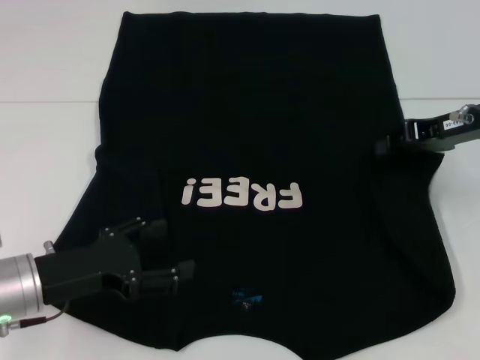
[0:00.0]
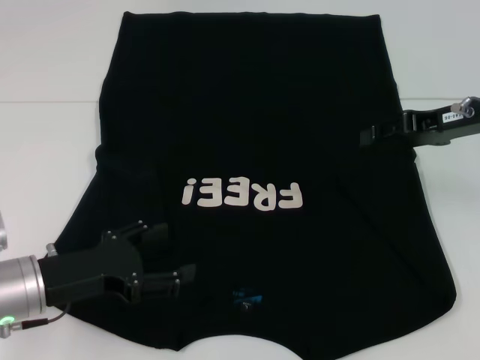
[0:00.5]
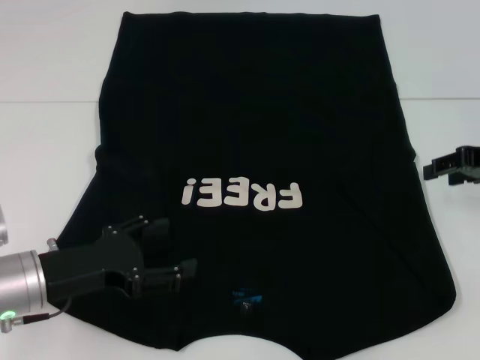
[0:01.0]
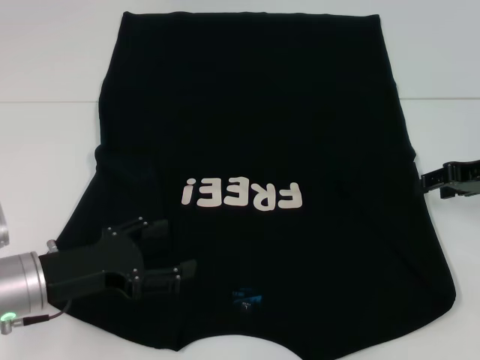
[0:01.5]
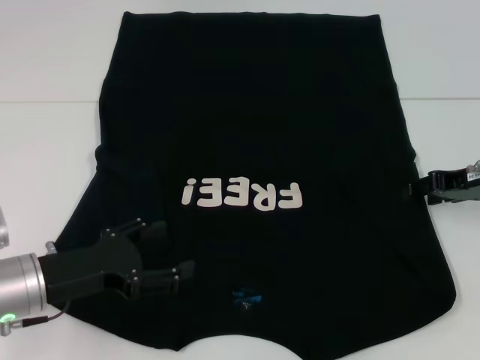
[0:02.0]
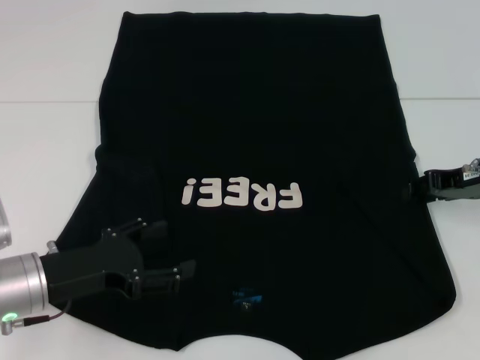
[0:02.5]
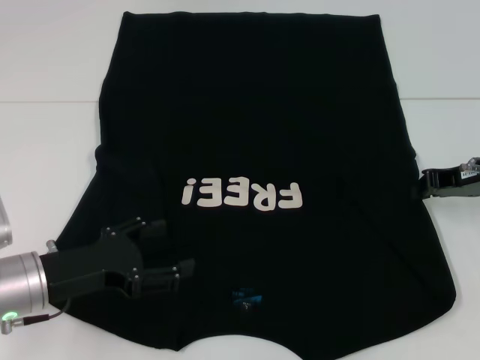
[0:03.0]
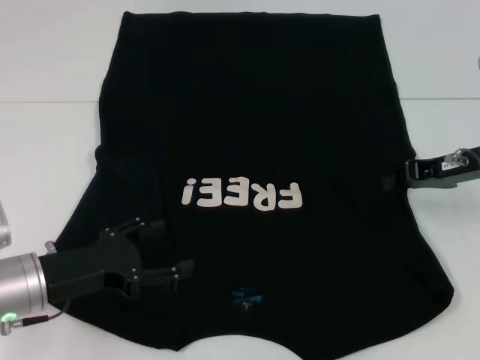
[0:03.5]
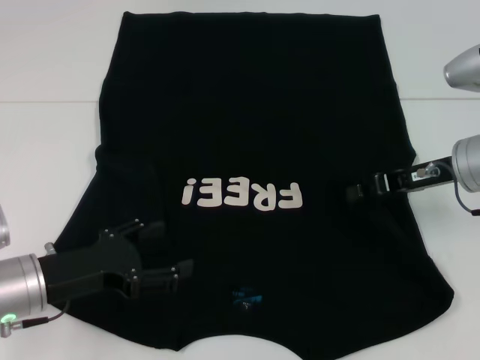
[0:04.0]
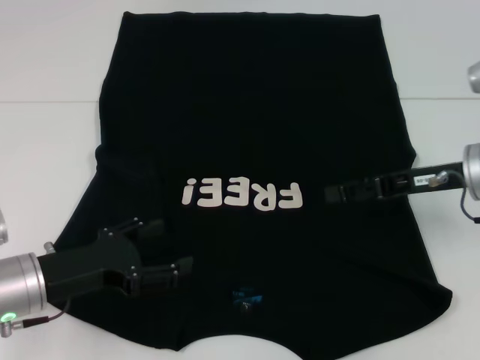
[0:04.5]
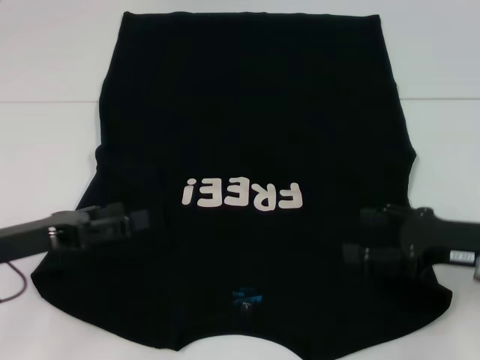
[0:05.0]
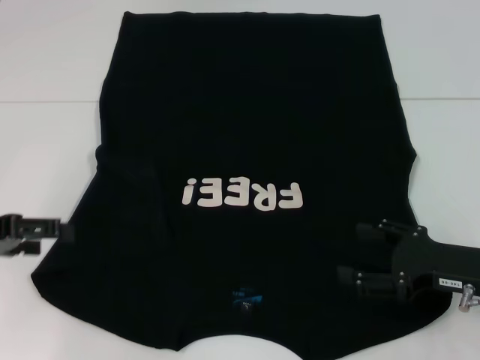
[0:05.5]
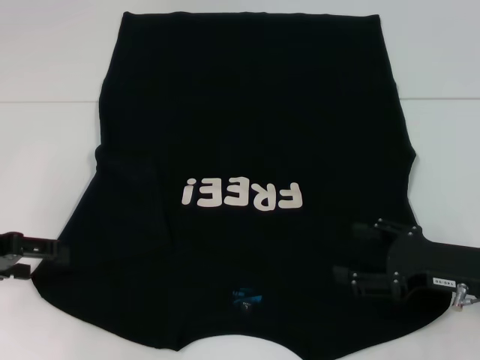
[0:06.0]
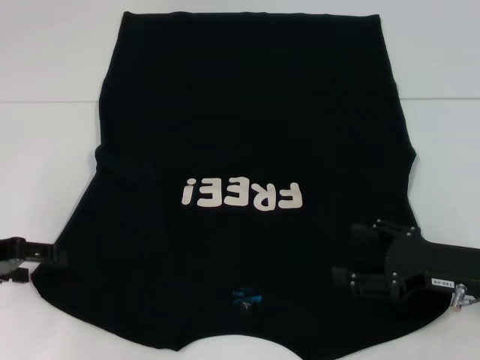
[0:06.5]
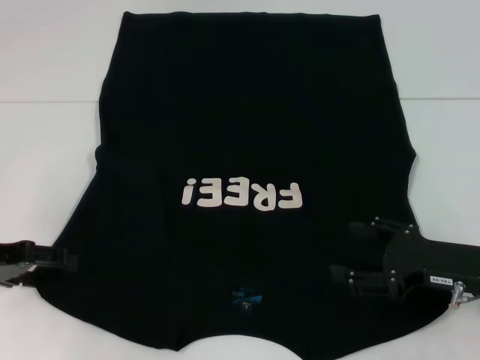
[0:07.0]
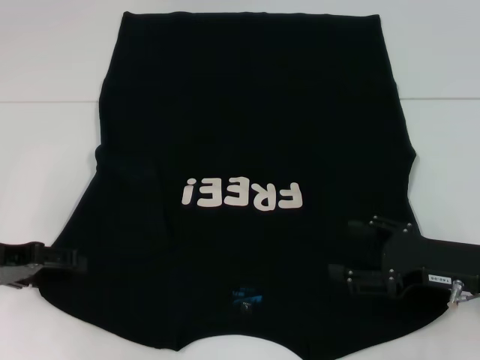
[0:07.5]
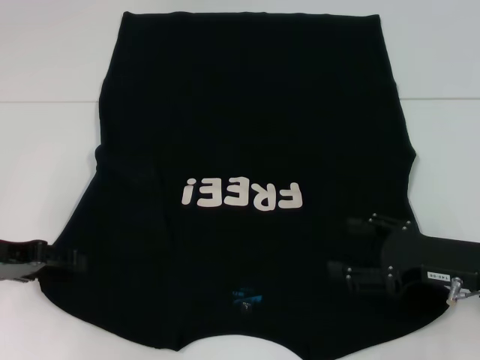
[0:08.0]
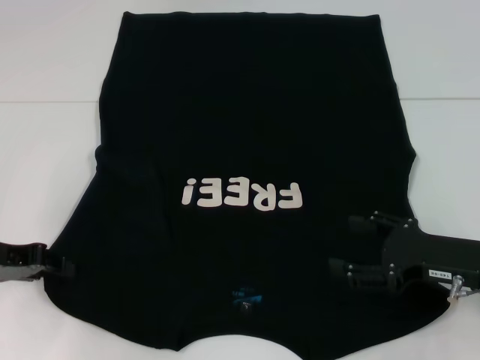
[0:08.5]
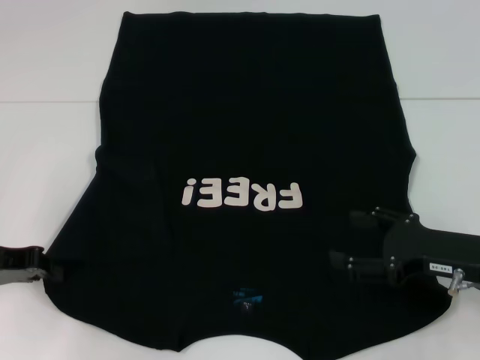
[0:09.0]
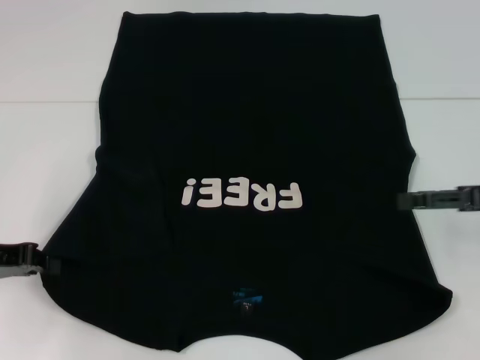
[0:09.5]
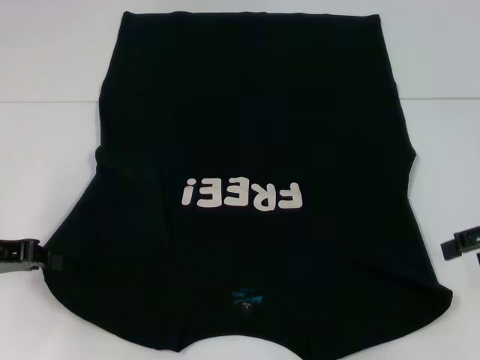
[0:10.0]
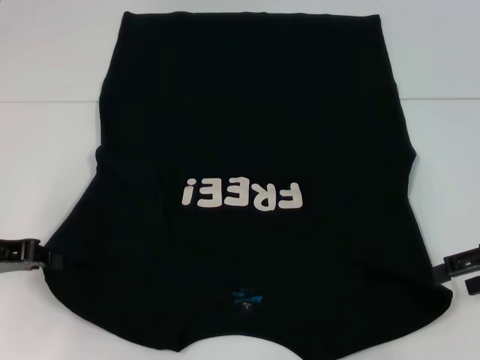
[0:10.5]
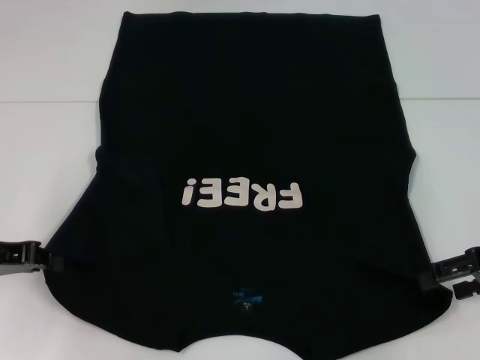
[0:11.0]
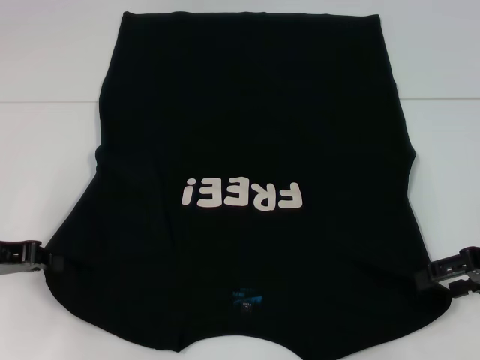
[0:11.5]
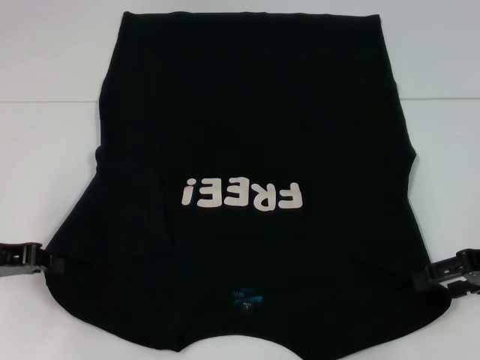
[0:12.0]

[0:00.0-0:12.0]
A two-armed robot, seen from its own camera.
Step, 0.0 to 4.5 s: Fold the bottom right sleeve with your right hand.
Step, 5.0 to 8.5 s: Grab the bottom left corner with your left hand.
0.0 to 2.0 s: The right gripper travels downward by roughly 5 cm, and opens.
2.0 to 4.0 s: The right gripper is displaced to the left by some 5 cm, and closes up.
4.0 to 6.0 s: The right gripper is displaced backward and downward by some 15 cm, and opens up. The left gripper travels to the left and upward by about 10 cm.
6.0 to 8.0 s: The grippers stay close to where they were, moving slightly.
8.0 to 10.0 s: The left gripper closes up. Meanwhile the right gripper heads upward and to the right, covering about 15 cm.
10.0 to 12.0 s: The right gripper shifts by roughly 5 cm.

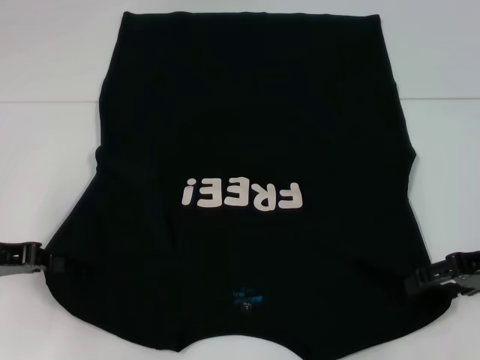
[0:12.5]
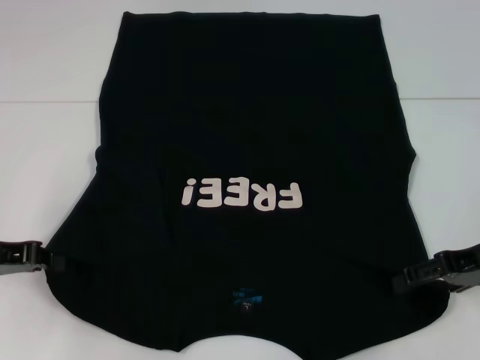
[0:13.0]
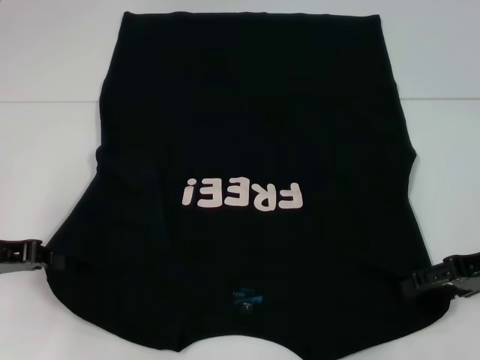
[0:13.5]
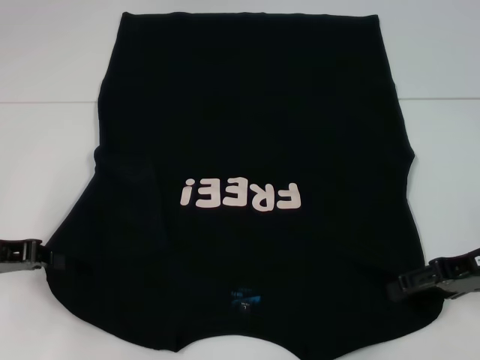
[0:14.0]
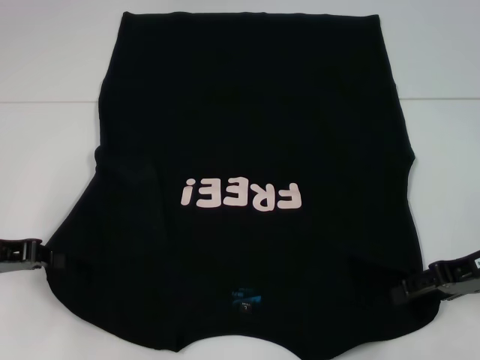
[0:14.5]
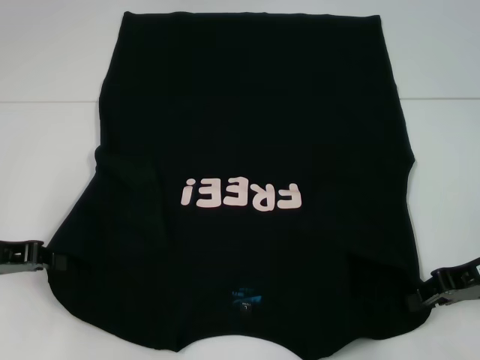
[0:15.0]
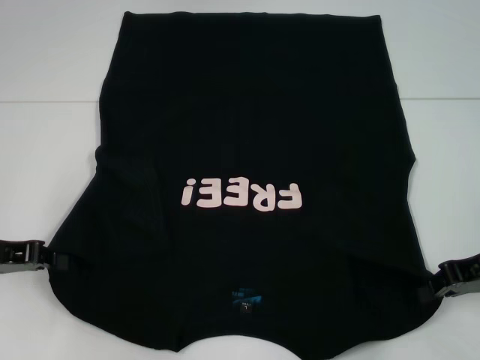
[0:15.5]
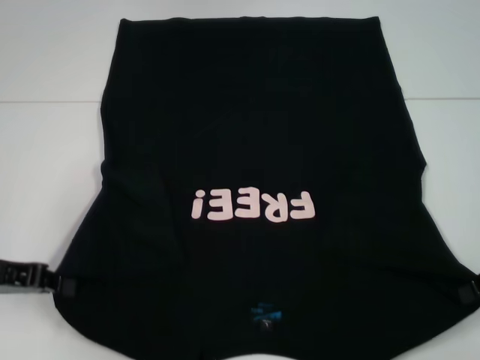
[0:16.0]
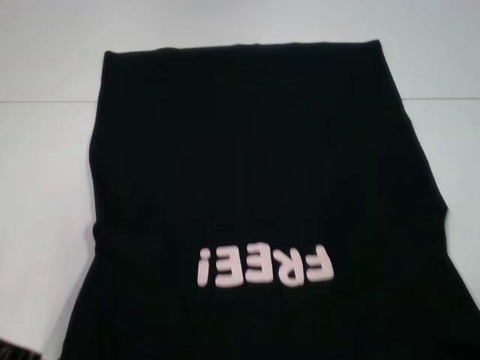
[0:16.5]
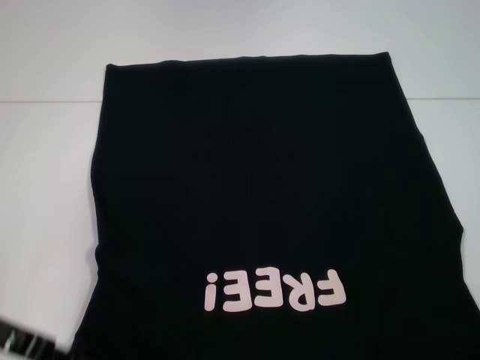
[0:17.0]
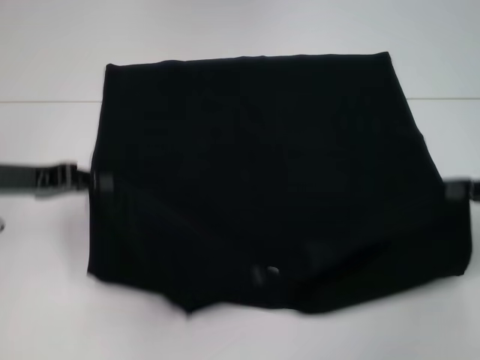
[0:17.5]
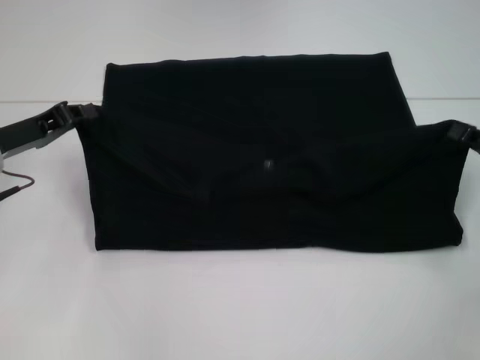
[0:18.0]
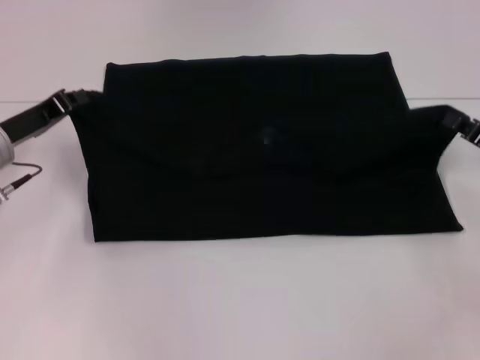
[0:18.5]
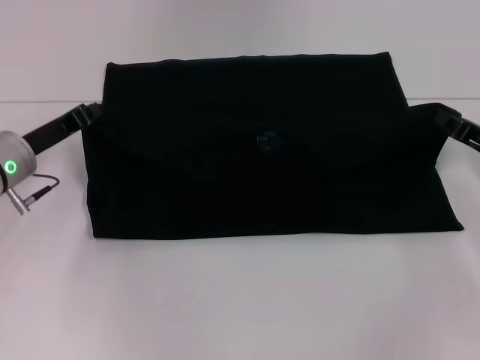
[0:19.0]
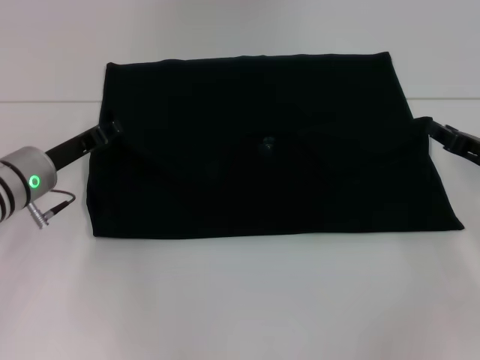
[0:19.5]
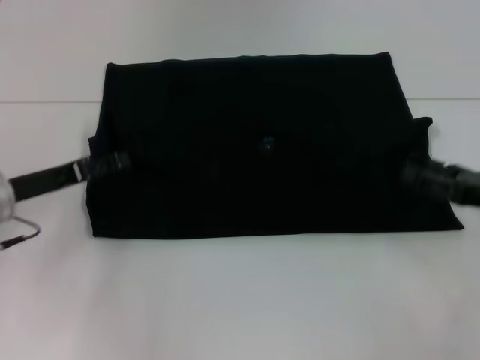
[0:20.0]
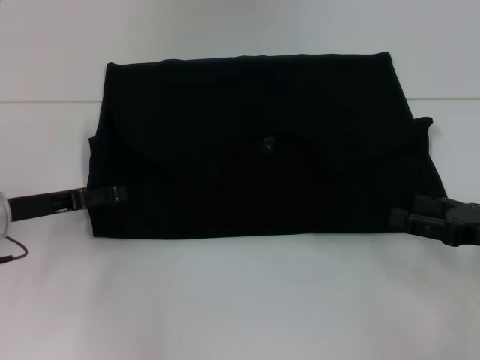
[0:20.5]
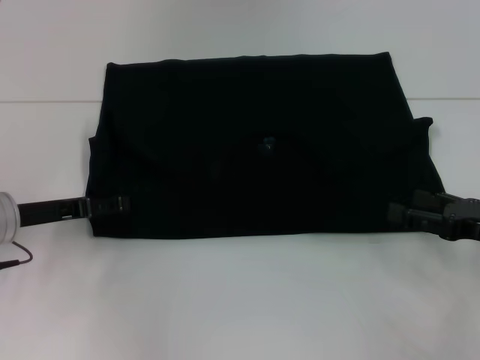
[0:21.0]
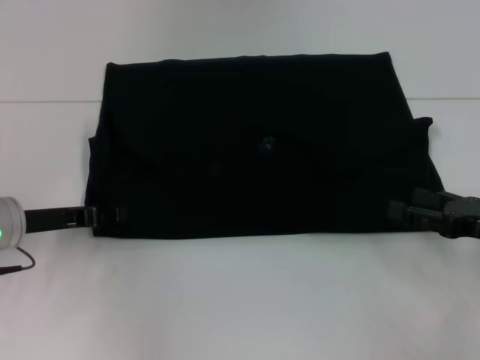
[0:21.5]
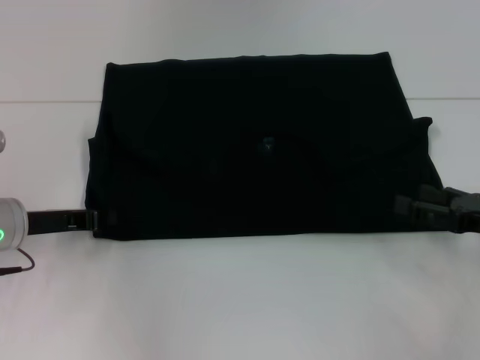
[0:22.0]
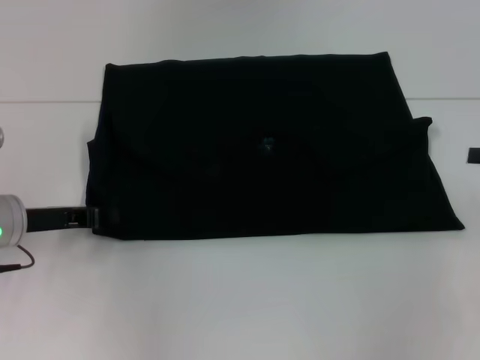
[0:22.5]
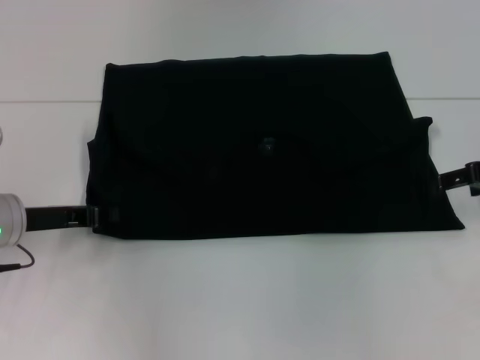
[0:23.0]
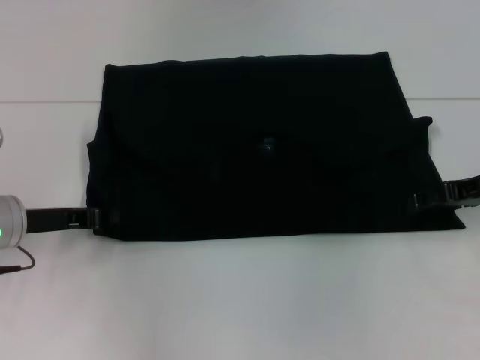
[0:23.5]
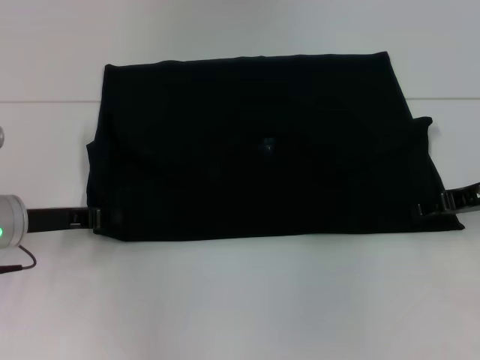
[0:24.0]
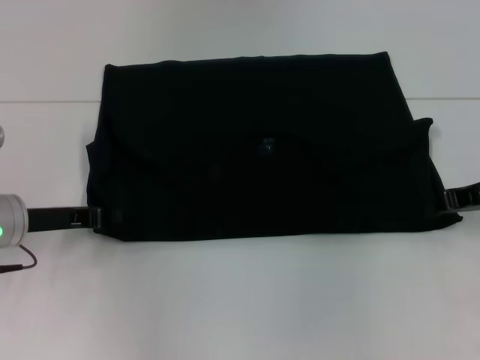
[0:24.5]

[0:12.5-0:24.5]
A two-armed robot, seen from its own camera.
Step, 12.5 to 15.0 s: Grab the bottom right corner with your right hand.
Step, 15.5 to 19.0 s: Fold the clothes with your left hand.
Step, 15.5 to 19.0 s: Fold the clothes with your right hand.
12.5 to 14.5 s: The grippers stay close to where they were, moving slightly.
14.5 to 16.5 s: The right gripper ends up roughly 5 cm from where it was, and closes up, while the left gripper changes place by roughly 5 cm.
16.5 to 18.5 s: The right gripper travels downward and forward by roughly 10 cm; the left gripper goes roughly 10 cm forward.
18.5 to 20.5 s: The right gripper is displaced backward by some 5 cm, and opens up. Meanwhile the left gripper opens its fingers.
20.5 to 22.5 s: The left gripper closes. The right gripper shifts approximately 10 cm upward and to the right.
22.5 to 24.5 s: The right gripper heads to the left, covering approximately 10 cm, and closes.

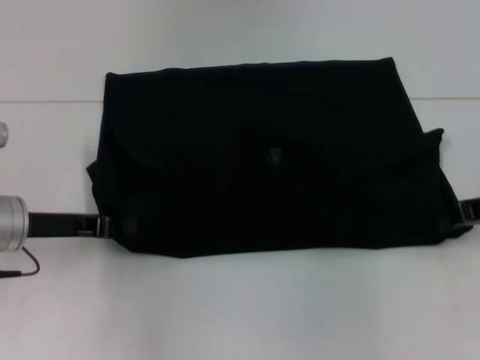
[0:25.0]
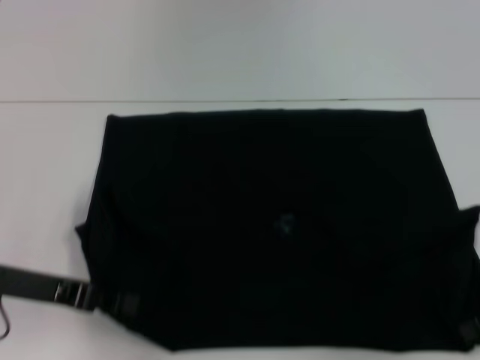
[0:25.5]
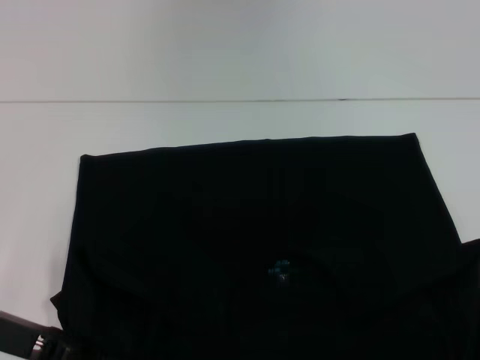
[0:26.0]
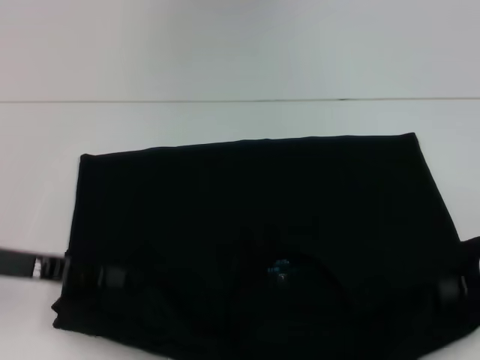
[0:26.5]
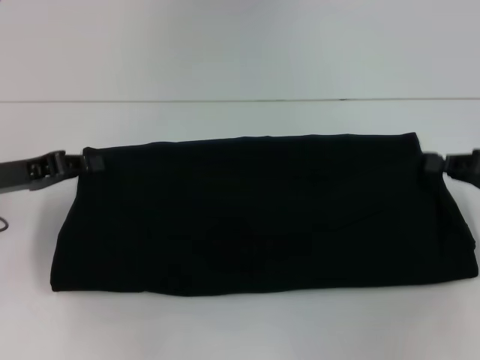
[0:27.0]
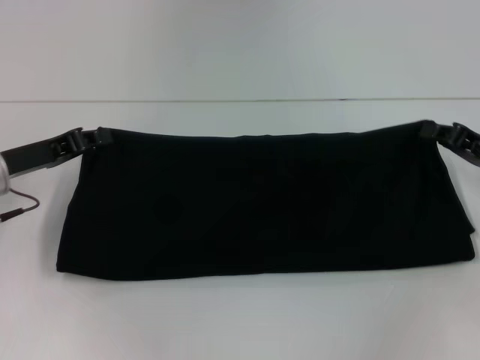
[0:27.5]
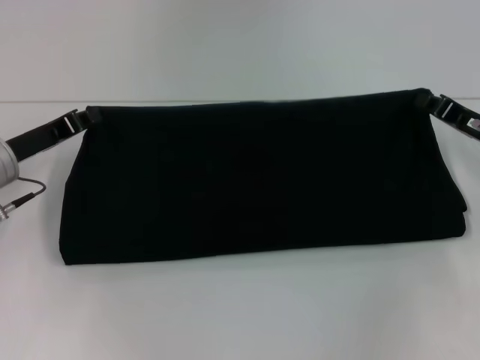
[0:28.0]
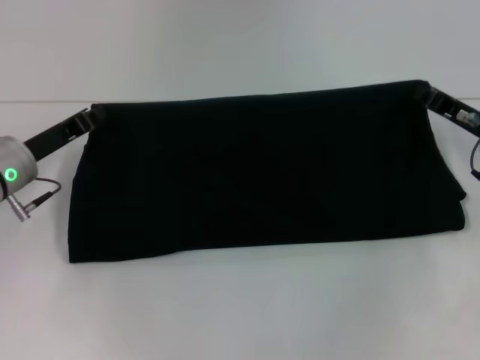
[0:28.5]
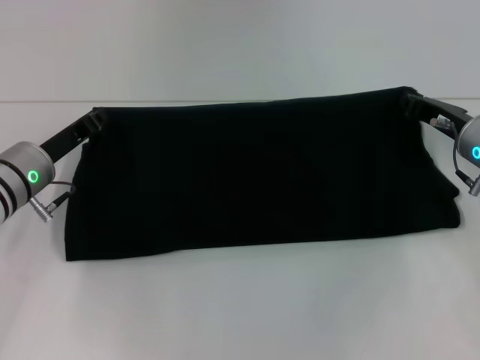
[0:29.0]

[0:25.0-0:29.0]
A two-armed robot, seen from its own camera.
25.0 to 27.0 s: The left gripper changes place by approximately 5 cm.
27.0 to 29.0 s: The left gripper moves to the right and downward, some 10 cm, while the right gripper travels to the left and forward by some 10 cm.
